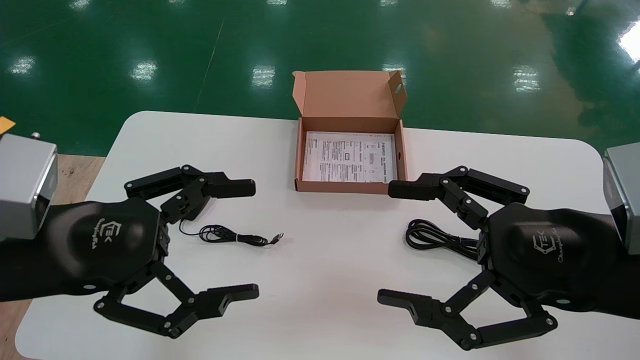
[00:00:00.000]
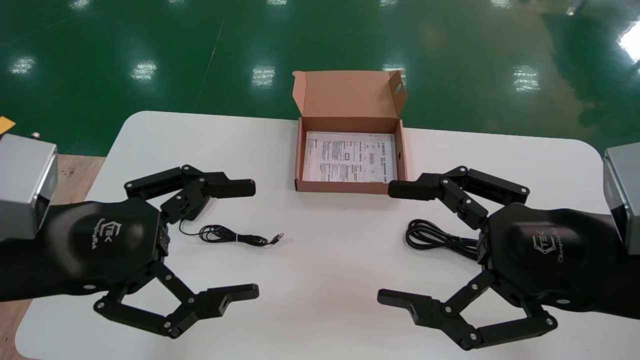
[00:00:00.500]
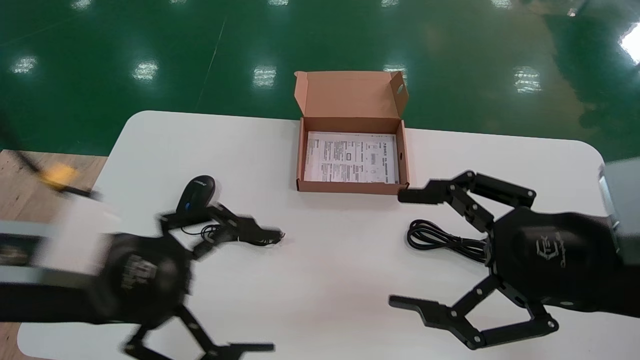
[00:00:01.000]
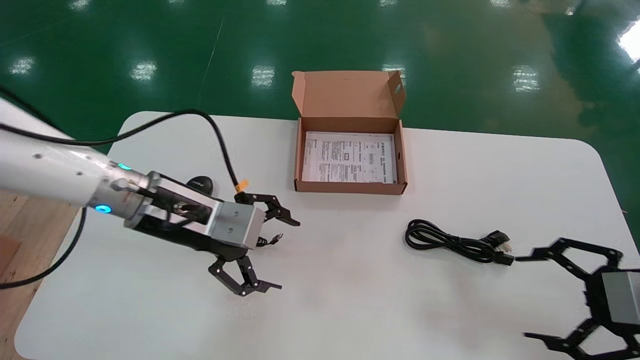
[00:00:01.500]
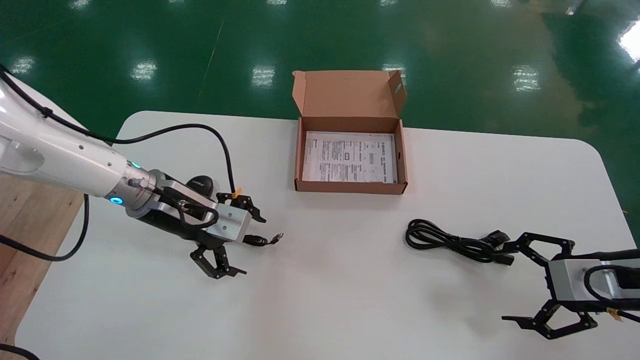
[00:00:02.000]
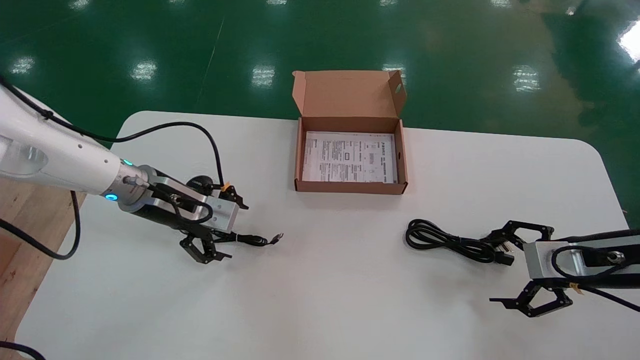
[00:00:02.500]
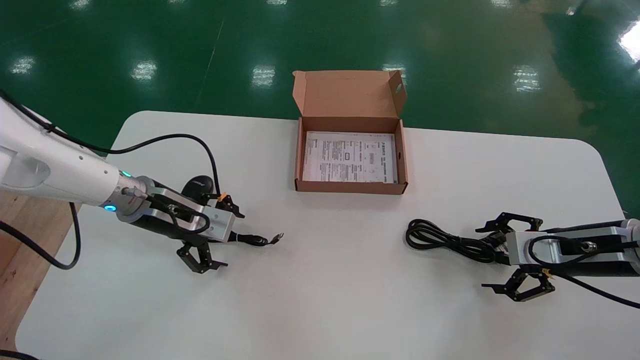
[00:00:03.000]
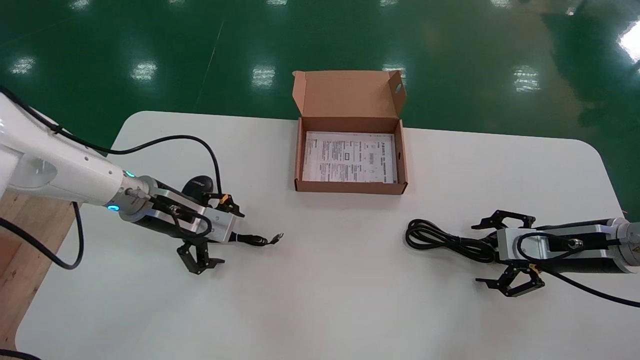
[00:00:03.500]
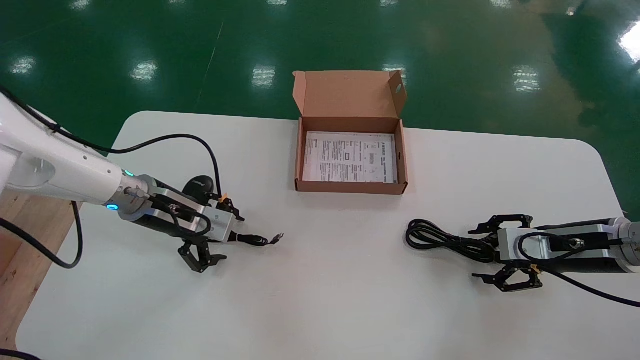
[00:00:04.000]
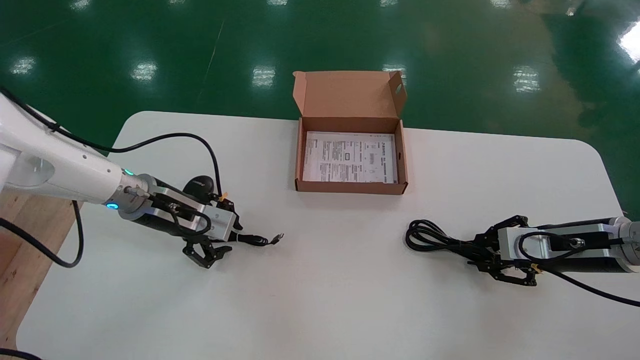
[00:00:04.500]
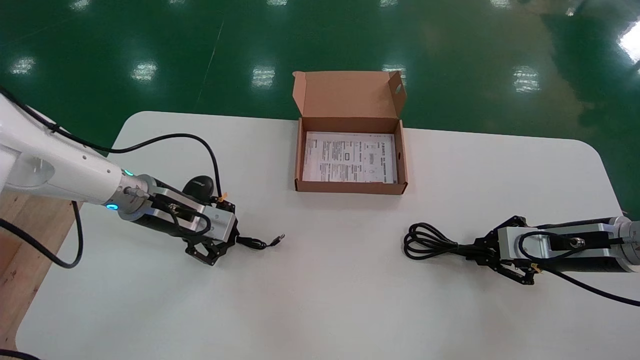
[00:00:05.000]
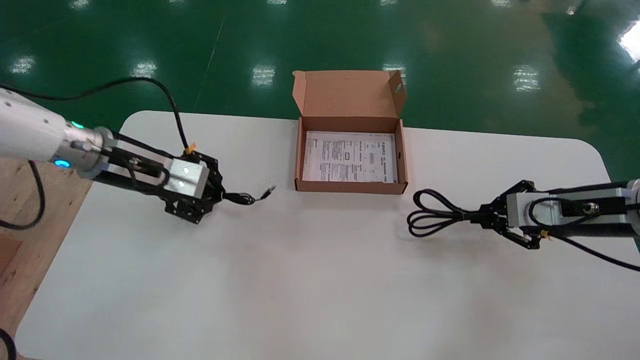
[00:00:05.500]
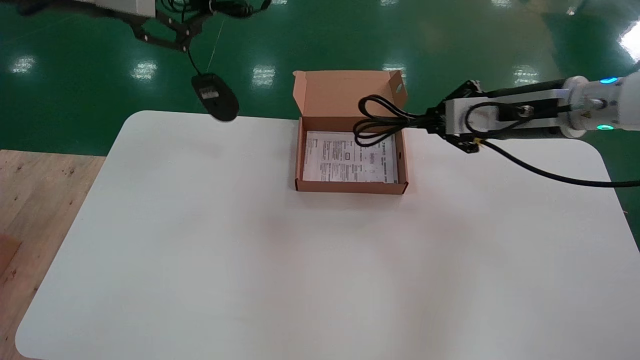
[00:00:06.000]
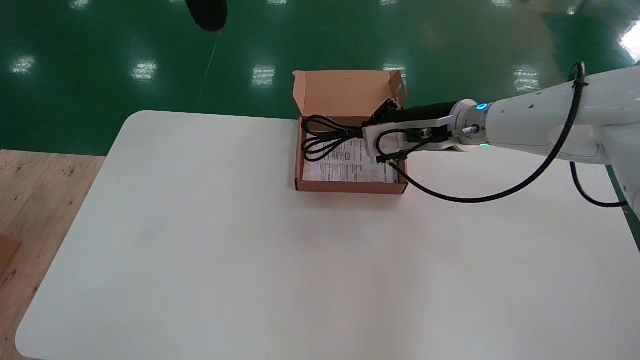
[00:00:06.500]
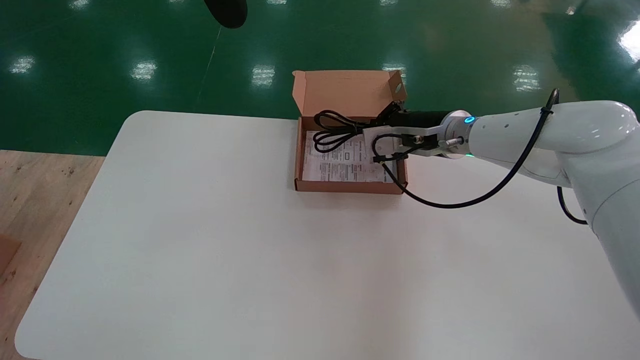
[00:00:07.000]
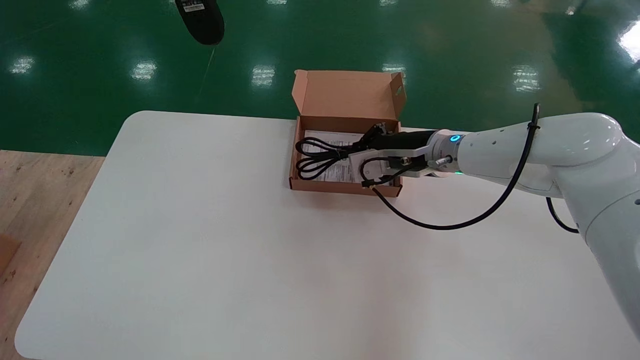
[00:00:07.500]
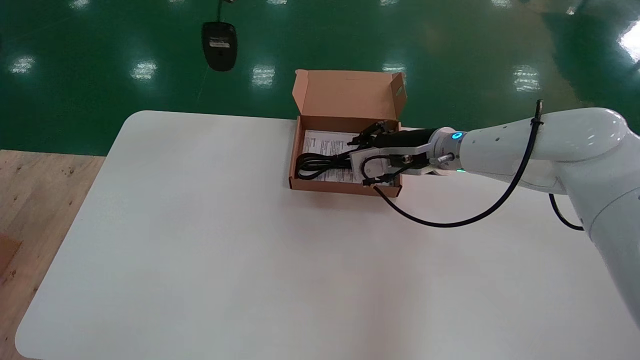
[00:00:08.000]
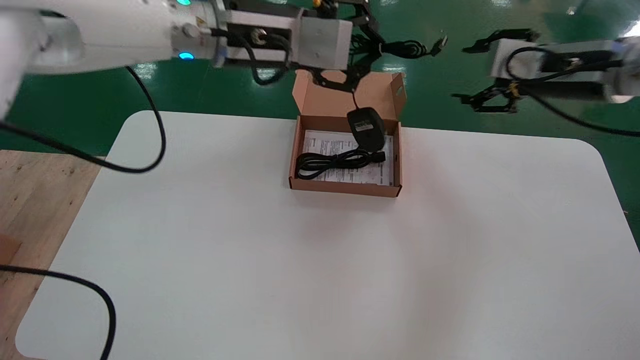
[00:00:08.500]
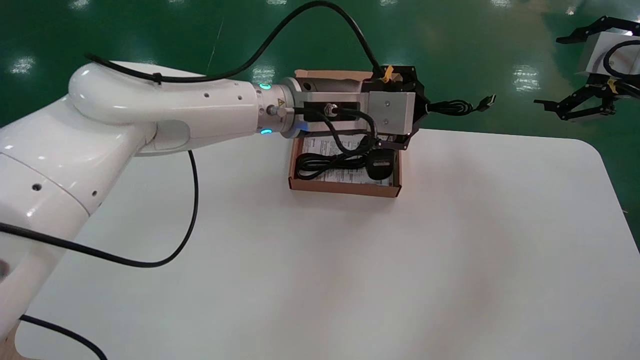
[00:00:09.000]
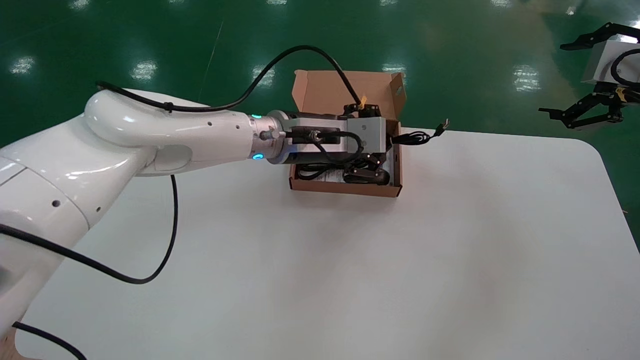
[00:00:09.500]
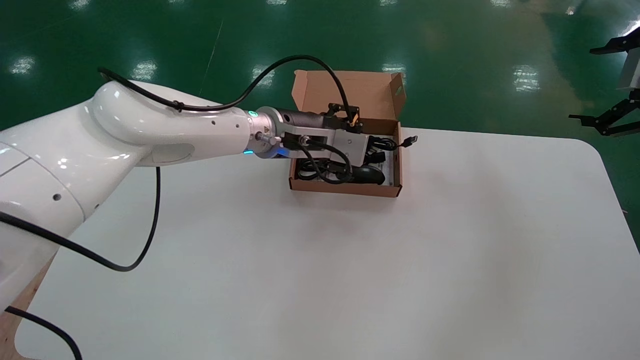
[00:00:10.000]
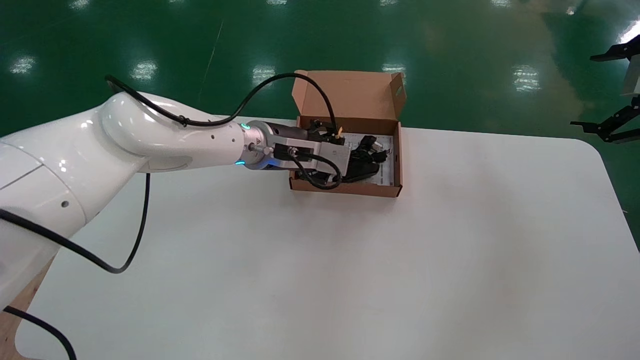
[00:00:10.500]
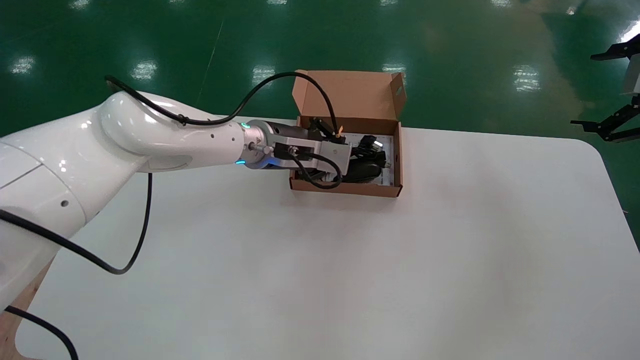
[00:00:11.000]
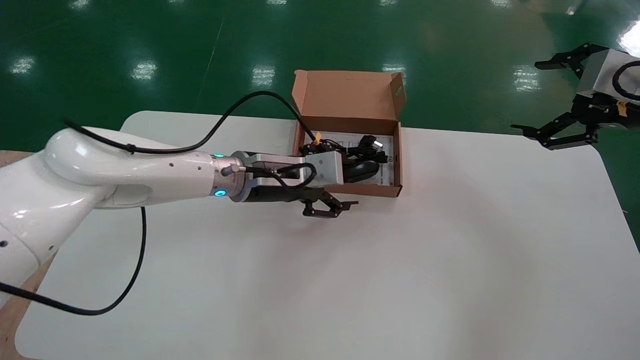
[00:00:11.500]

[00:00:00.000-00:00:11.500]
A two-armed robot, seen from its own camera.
Step, 00:00:01.500 to 00:00:05.000: Simultaneously pick up the mouse and power cord from the accessory packaging area.
00:00:00.000 to 00:00:02.000: The right gripper travels to the right, forward and downward by approximately 20 cm, while the left gripper goes about 20 cm forward.
00:00:02.000 to 00:00:04.000: The left gripper changes place by about 5 cm; the right gripper travels forward by about 10 cm.
00:00:04.000 to 00:00:06.000: The right gripper travels upward and to the left by approximately 20 cm, and closes its fingers; the left gripper travels upward by roughly 30 cm, and closes up.
00:00:06.000 to 00:00:07.500: The right gripper shifts approximately 15 cm to the left, downward and forward. The left gripper travels upward by some 10 cm.
00:00:07.500 to 00:00:09.500: The left gripper travels downward, to the right and forward by approximately 40 cm. Meanwhile the right gripper moves to the right, upward and backward, approximately 30 cm, and opens.
00:00:09.500 to 00:00:11.500: The left gripper shifts some 10 cm downward and to the left, and opens its fingers.

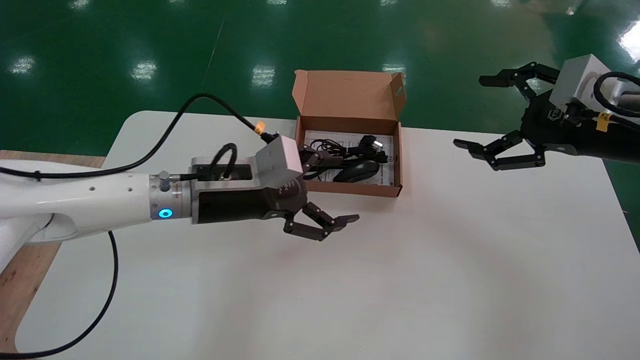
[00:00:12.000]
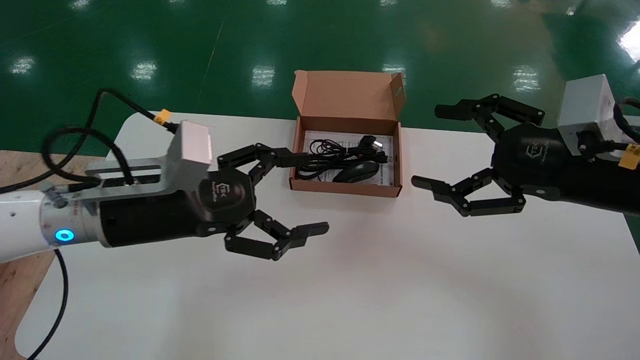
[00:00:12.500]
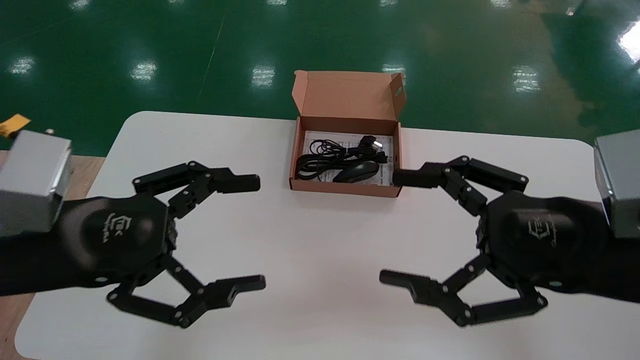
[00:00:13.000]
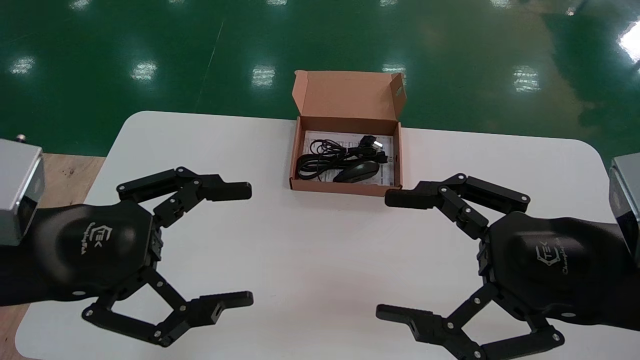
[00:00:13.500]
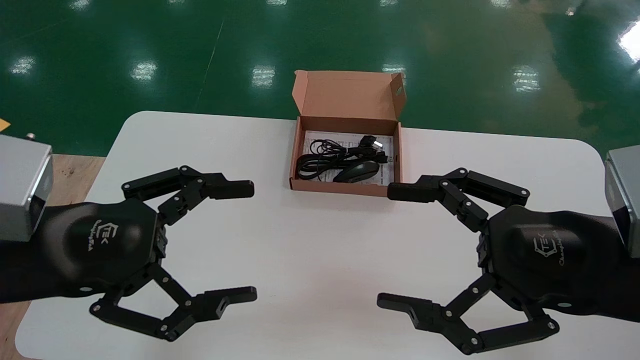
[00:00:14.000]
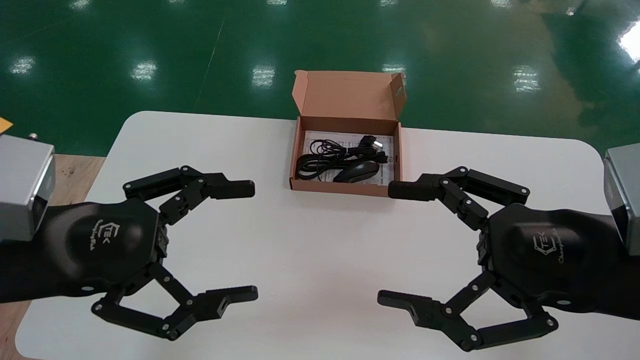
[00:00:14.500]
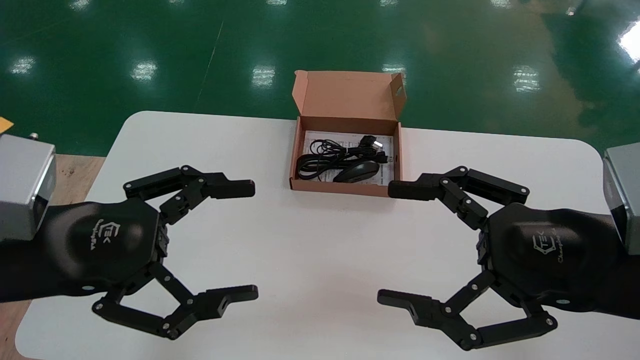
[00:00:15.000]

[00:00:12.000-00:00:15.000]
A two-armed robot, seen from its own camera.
00:00:12.000 to 00:00:13.500: The left gripper moves backward and to the left, about 20 cm. Meanwhile the right gripper moves backward, to the left and downward, some 20 cm.
00:00:13.500 to 00:00:15.000: The two grippers keep their place.
